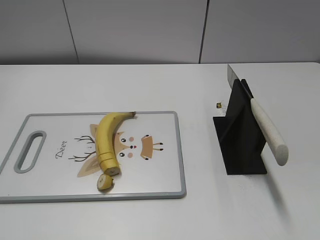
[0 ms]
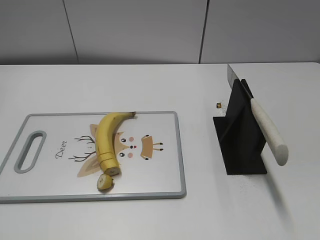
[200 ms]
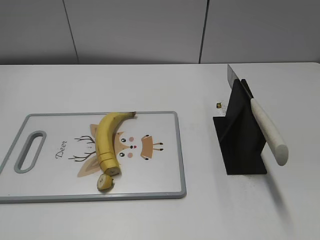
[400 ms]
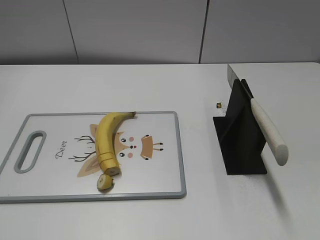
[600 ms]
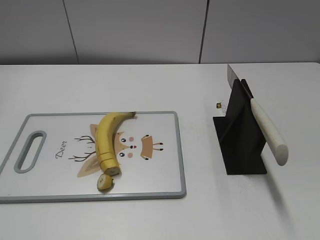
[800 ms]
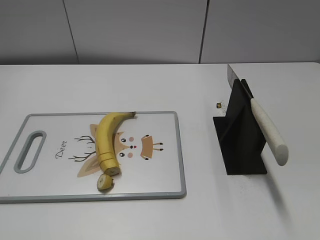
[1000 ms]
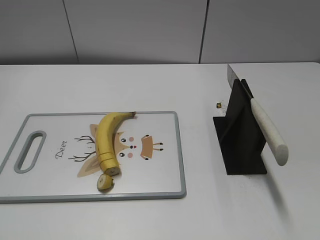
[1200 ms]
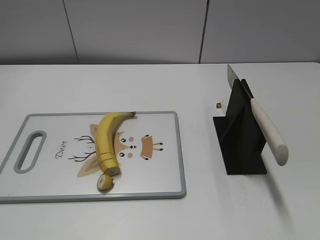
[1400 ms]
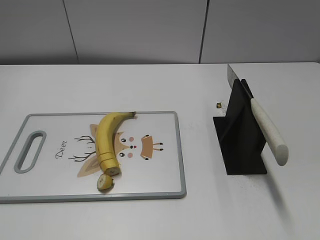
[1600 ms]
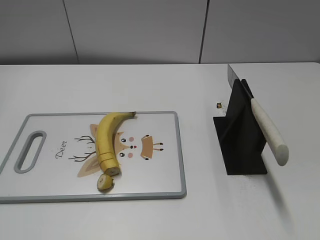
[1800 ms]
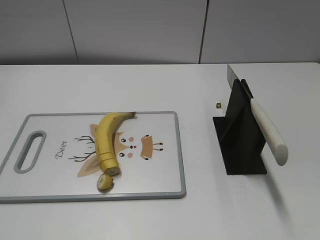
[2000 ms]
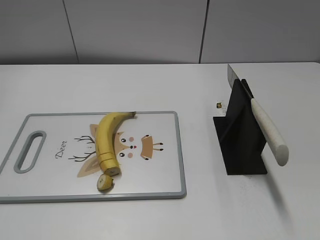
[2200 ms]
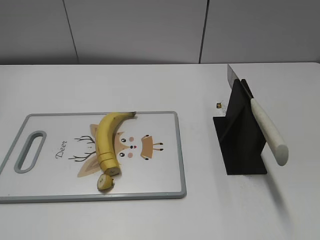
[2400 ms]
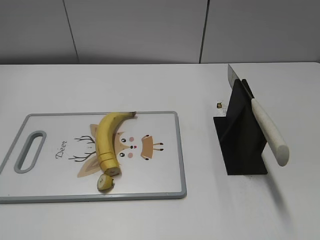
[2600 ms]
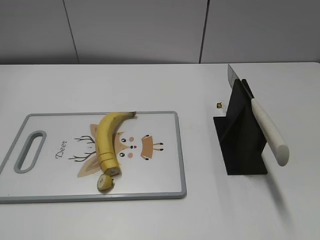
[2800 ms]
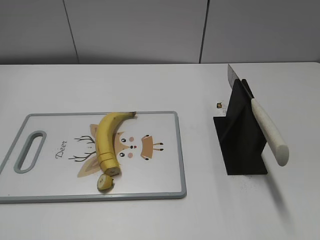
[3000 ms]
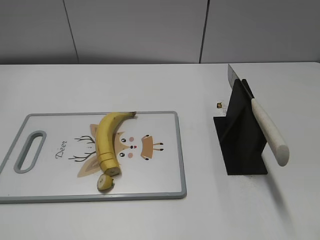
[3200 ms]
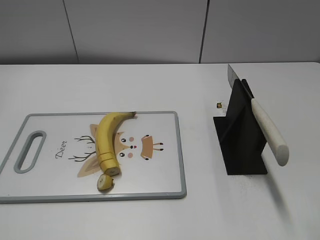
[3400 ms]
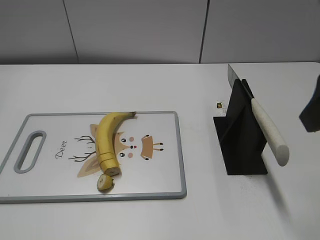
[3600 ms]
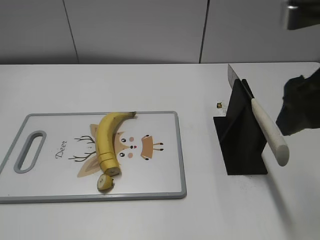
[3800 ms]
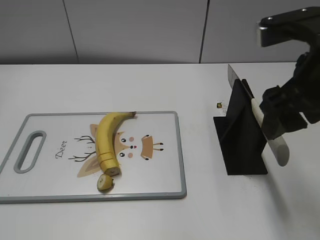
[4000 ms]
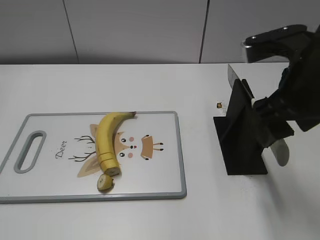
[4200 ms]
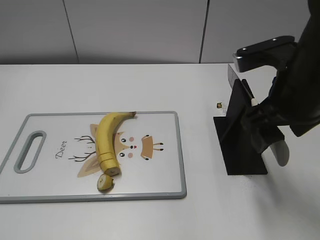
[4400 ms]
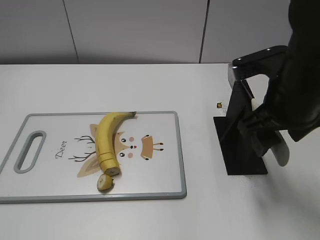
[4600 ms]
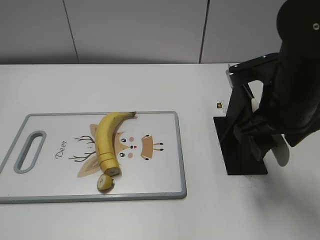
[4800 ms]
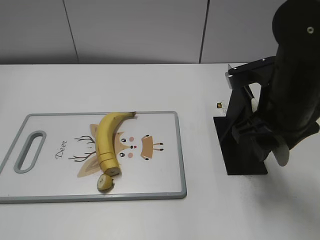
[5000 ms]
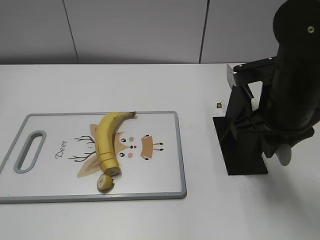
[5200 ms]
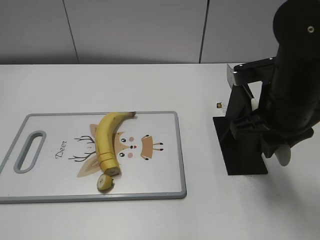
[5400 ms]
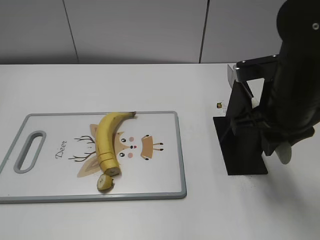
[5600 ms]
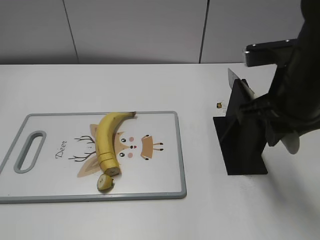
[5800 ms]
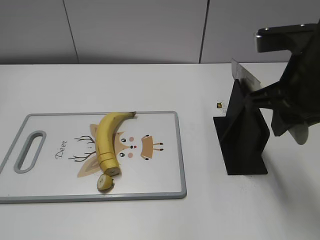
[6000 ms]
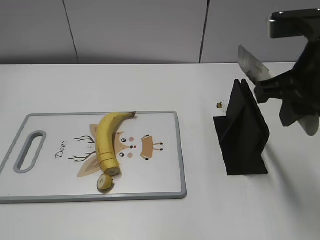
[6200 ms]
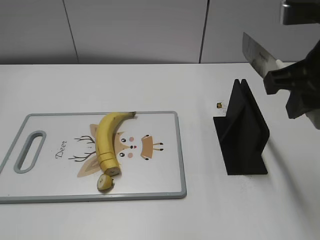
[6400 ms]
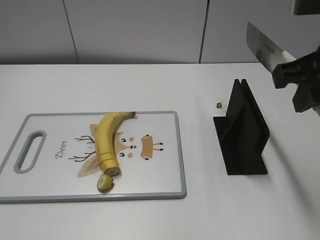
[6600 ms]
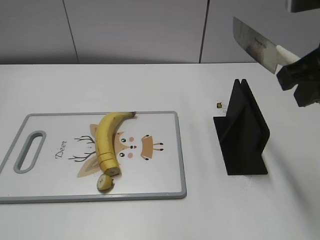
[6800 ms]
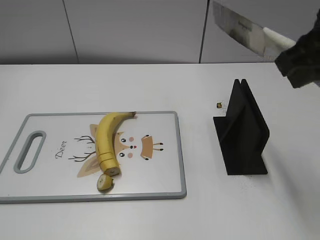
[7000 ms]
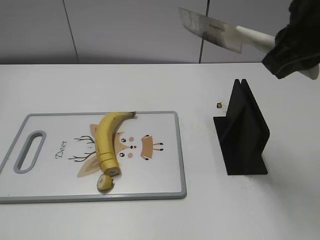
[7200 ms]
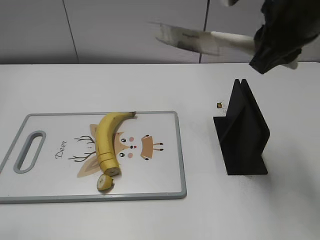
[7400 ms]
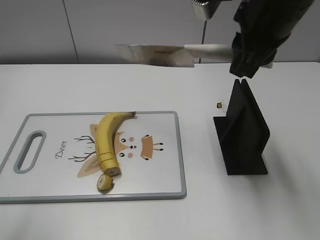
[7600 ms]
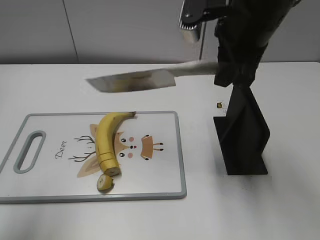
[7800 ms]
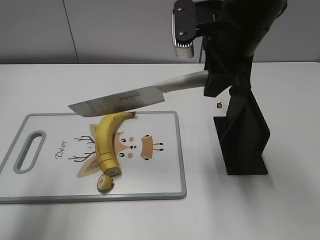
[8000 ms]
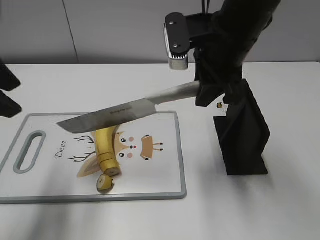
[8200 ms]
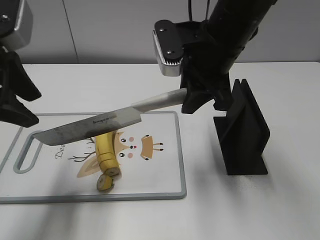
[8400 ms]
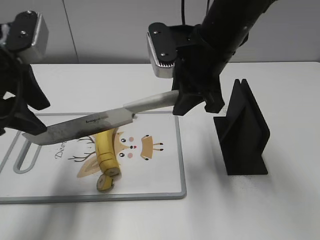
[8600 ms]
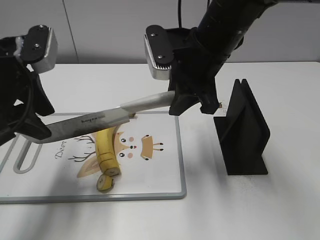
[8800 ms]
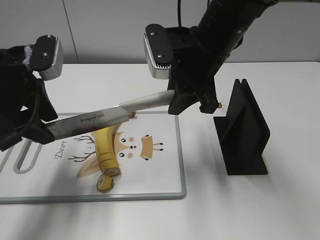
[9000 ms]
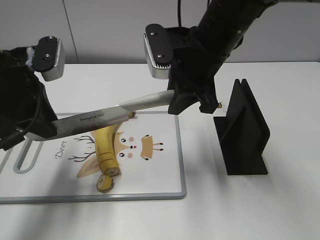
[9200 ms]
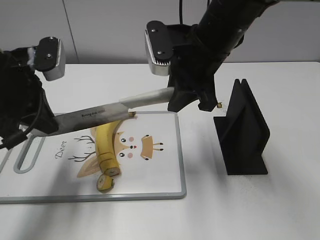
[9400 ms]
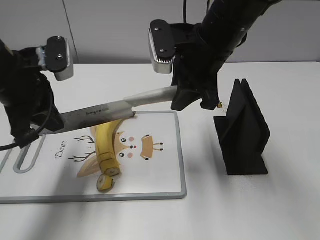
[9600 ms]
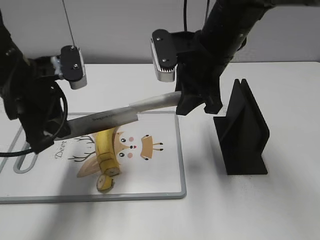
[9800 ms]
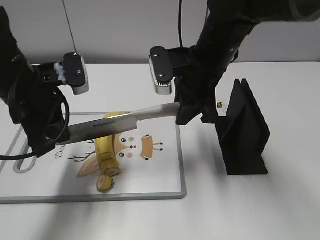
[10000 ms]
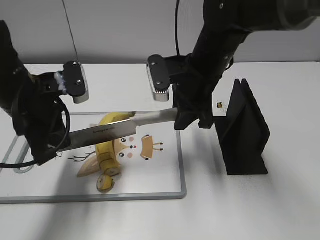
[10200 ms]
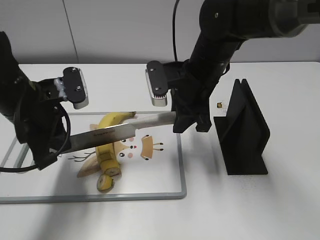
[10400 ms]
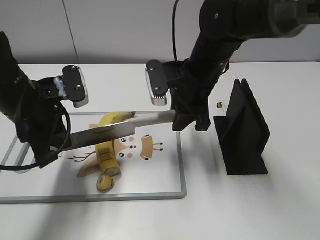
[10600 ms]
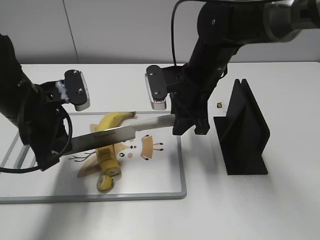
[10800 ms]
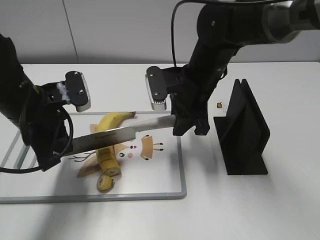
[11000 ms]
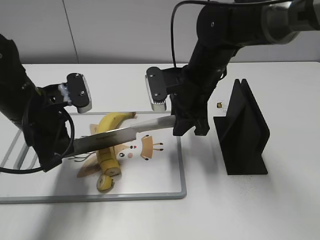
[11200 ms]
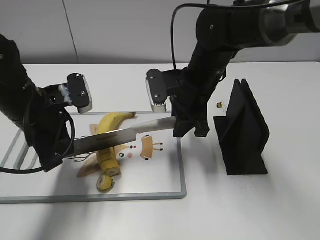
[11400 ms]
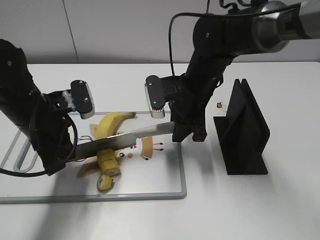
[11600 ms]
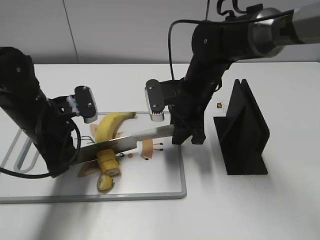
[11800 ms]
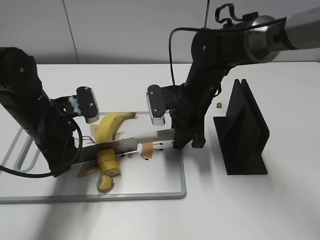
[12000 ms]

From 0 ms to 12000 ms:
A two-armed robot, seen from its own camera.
Task of the whole recording: cut banana.
Step, from 0 ms to 6200 ms: Grab the knife handle with your right hand.
Step, from 6600 ms to 11400 ms: Lift the knife with your right hand.
From 3000 ms to 4400 ms: The right gripper goes roughly 20 cm forward, downward and to the left.
From 4400 ms to 6000 ms: The right gripper closes.
From 6000 ms to 7600 ms: The right gripper shifts approximately 10 cm forward and upward. Meanwhile the left gripper goes about 15 cm forward and upward.
From 7600 ms to 9000 ms: The left gripper shifts approximately 20 cm forward and downward. The right gripper goes approximately 10 cm downward and to the left.
From 9000 ms to 10400 ms: Both grippers travel together downward, approximately 5 cm. The left gripper closes.
From 10400 ms to 12000 ms: The grippers both shift downward by about 5 cm.

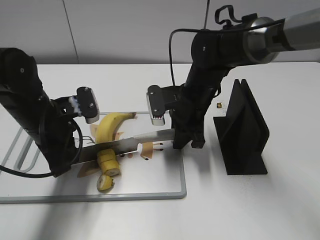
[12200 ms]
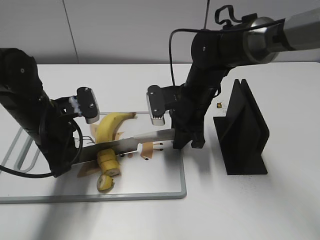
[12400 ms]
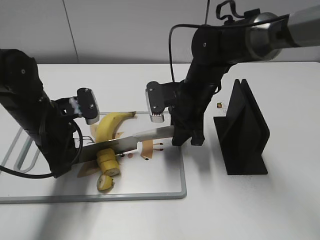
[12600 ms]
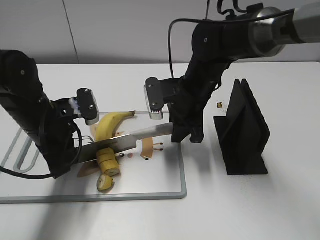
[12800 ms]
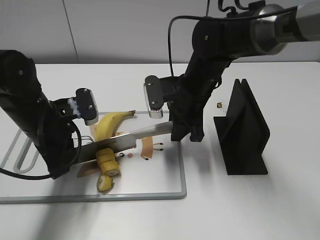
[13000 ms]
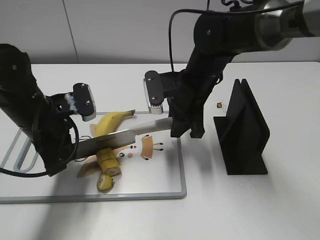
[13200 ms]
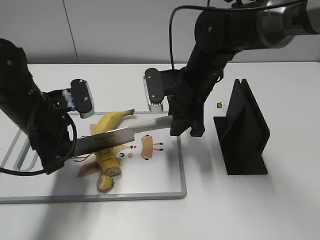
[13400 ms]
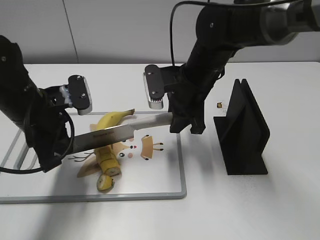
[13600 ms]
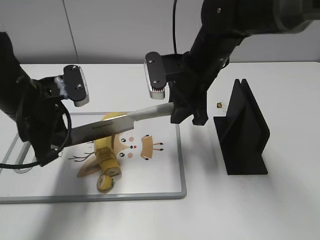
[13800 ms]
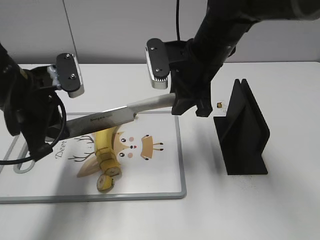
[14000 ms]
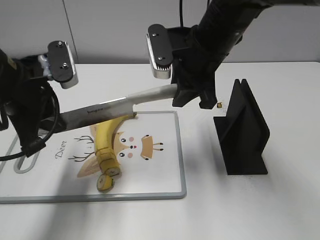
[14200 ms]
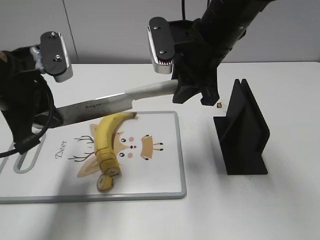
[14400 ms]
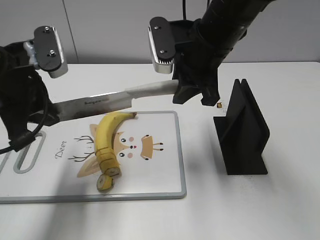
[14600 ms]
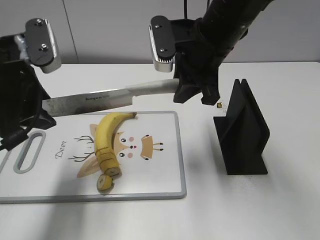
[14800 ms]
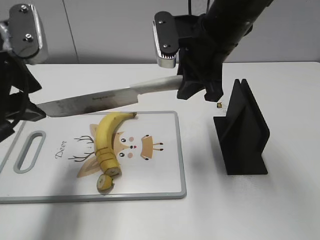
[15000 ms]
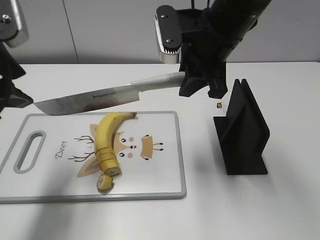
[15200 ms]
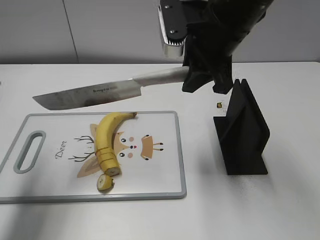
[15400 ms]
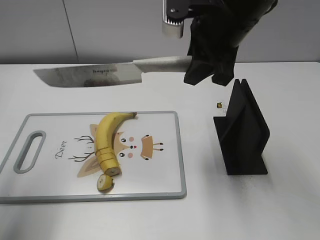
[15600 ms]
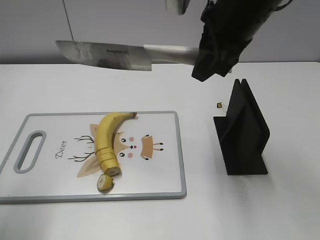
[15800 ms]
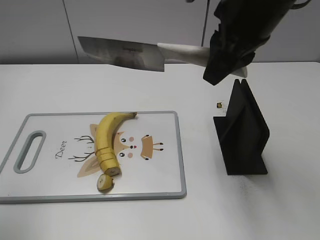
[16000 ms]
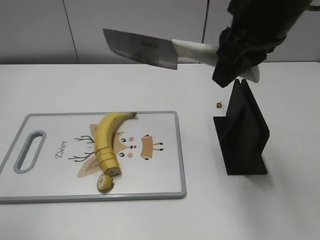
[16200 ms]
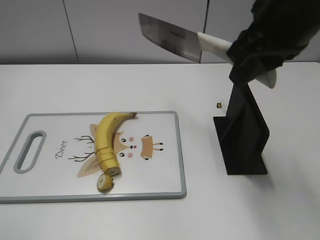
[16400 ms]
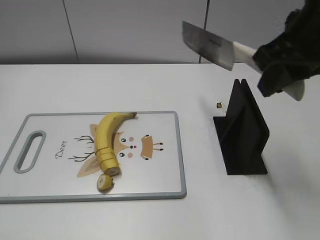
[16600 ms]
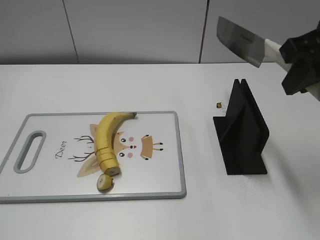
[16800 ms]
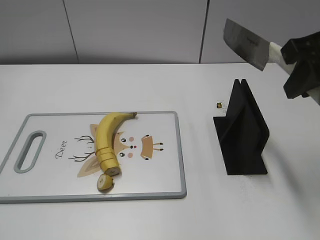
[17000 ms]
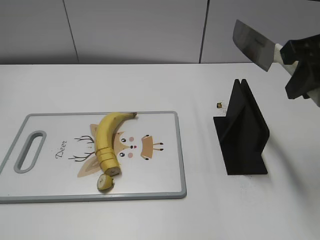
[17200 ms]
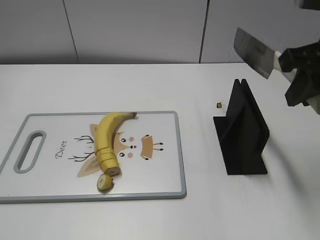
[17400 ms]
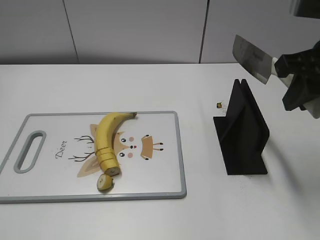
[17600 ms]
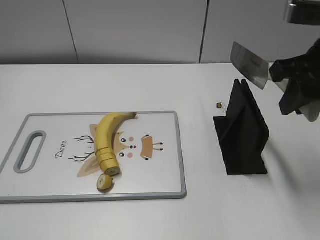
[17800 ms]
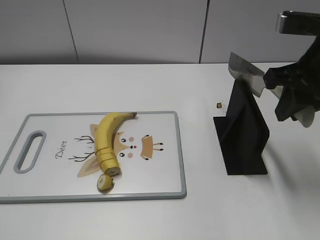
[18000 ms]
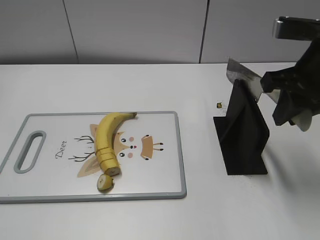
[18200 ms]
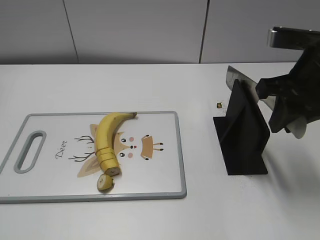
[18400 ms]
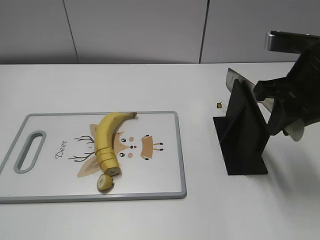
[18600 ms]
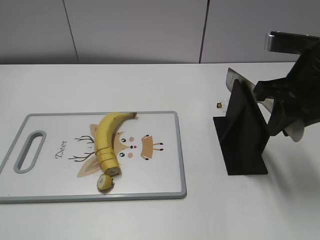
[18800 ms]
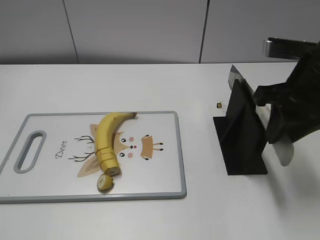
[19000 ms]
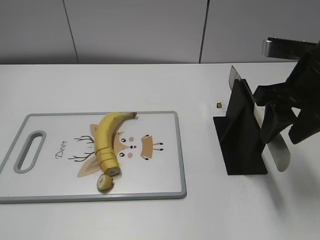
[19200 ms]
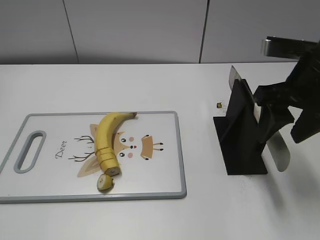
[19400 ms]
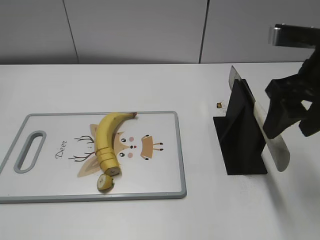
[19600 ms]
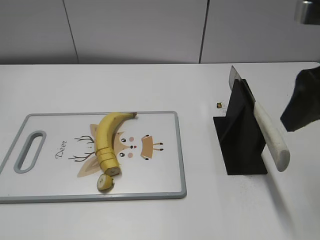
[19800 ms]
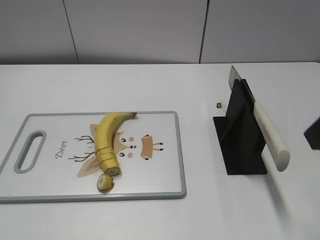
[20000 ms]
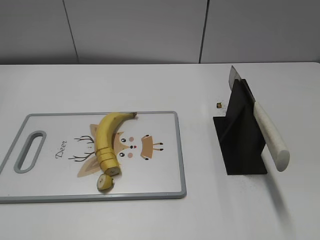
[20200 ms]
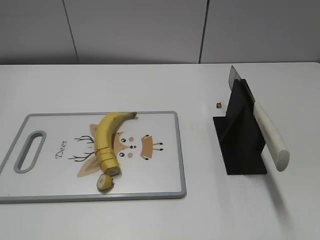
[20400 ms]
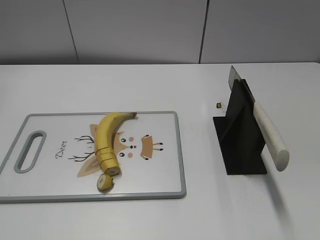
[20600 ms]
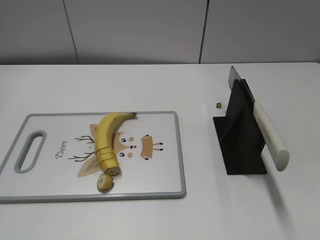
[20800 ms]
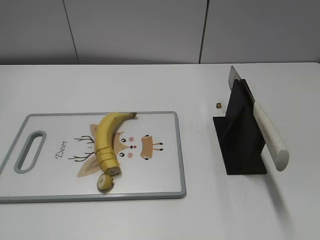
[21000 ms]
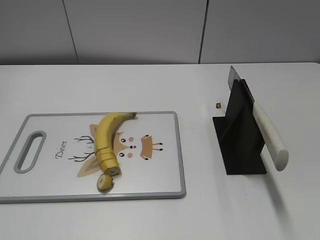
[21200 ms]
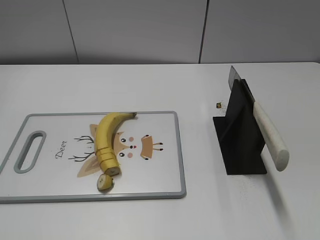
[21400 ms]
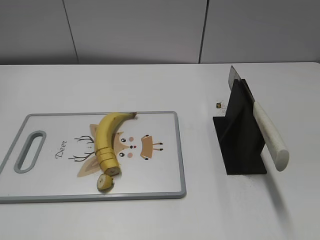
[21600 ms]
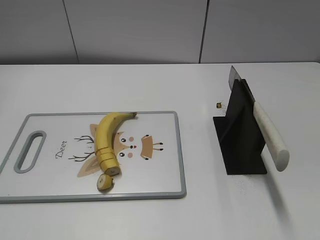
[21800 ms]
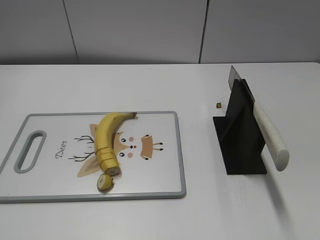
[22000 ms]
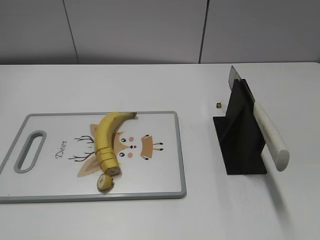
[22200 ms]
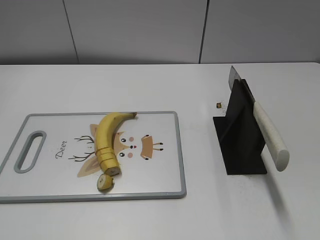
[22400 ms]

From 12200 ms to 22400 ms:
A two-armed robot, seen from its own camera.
Task of the whole recording: cut banana.
Step, from 12200 ms to 14800 ms: Cut the banana with your right hand.
Step, from 15200 ms to 18000 ms: Lift the knife with your right hand.
Step, from 18400 ms to 22400 ms: Place the knife on the storage rack with your right hand.
From 12200 ms to 13600 ms: The right gripper moves upward, some 5 cm.
From 13600 ms to 15200 ms: The grippers both shift upward by approximately 10 cm. The left gripper opens.
From 15200 ms to 16600 ms: The left gripper goes some 20 cm backward. The right gripper travels to the right, backward and upward by approximately 15 cm.
From 16600 ms to 18000 ms: The right gripper ends up about 5 cm from where it was; the left gripper travels backward by roughly 5 cm.
From 18000 ms to 19400 ms: The right gripper opens up.
From 19400 ms to 21000 ms: The right gripper moves backward, some 25 cm.
